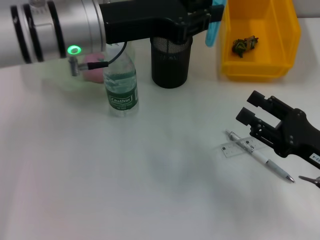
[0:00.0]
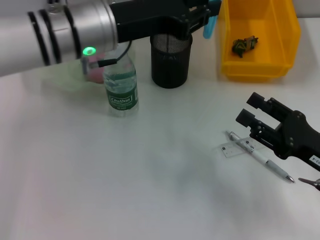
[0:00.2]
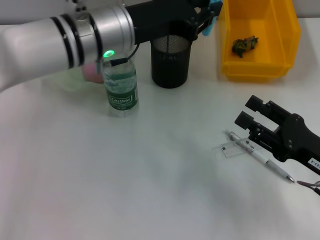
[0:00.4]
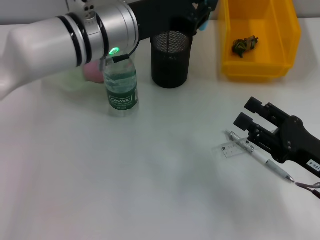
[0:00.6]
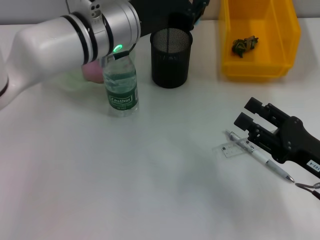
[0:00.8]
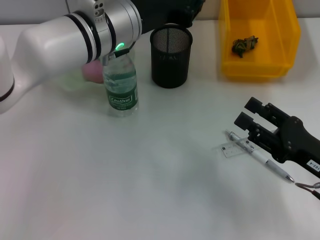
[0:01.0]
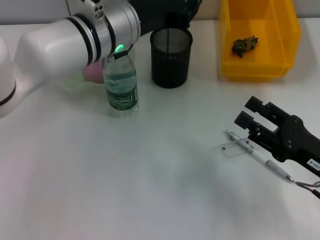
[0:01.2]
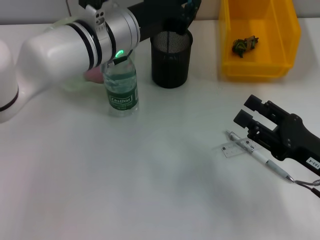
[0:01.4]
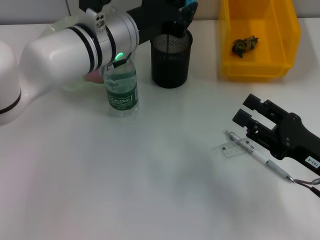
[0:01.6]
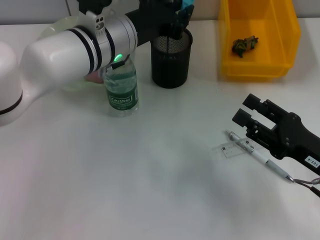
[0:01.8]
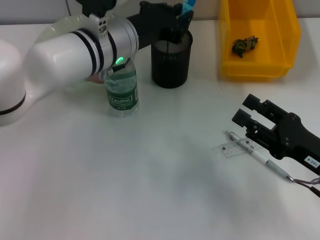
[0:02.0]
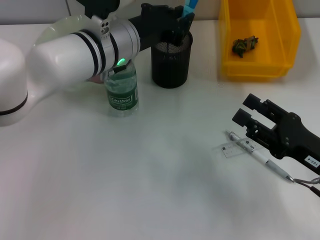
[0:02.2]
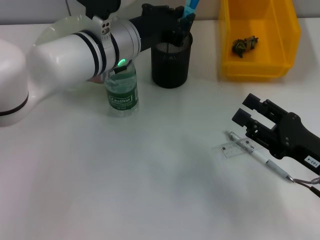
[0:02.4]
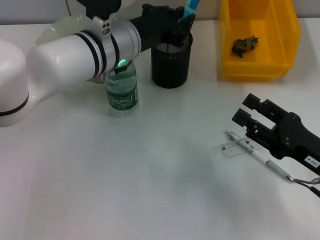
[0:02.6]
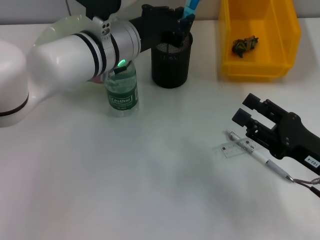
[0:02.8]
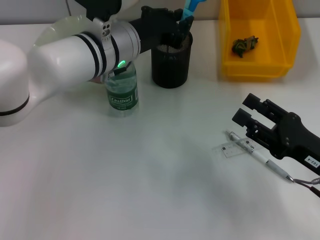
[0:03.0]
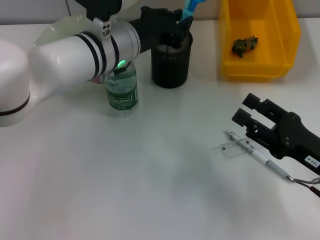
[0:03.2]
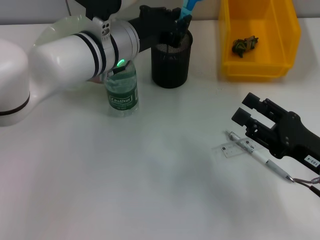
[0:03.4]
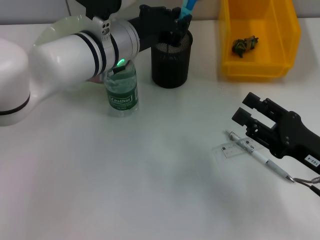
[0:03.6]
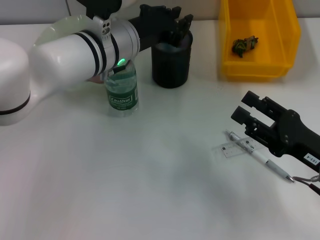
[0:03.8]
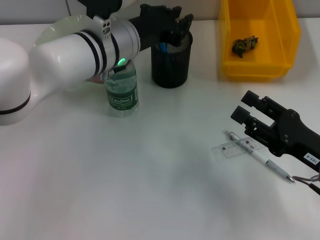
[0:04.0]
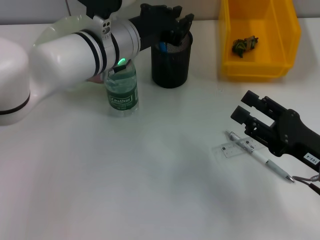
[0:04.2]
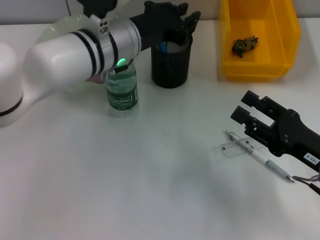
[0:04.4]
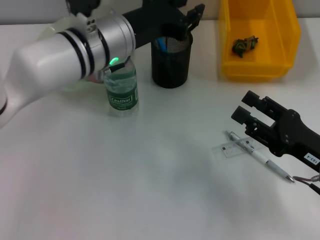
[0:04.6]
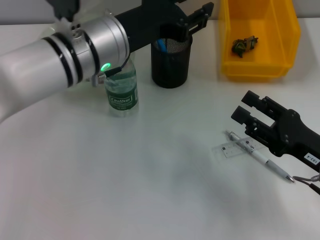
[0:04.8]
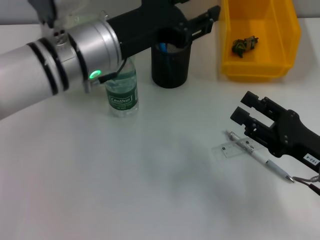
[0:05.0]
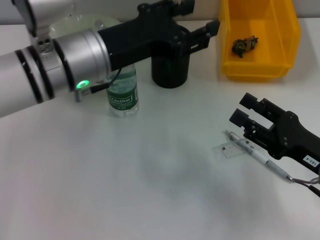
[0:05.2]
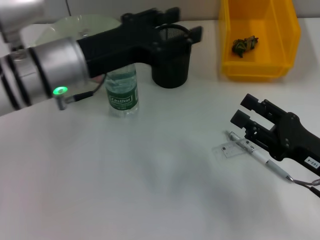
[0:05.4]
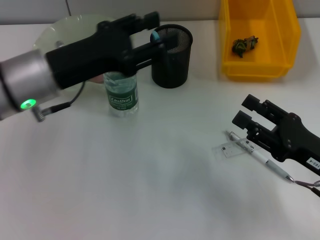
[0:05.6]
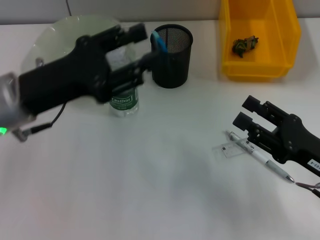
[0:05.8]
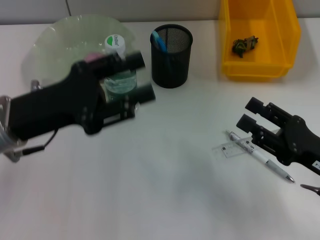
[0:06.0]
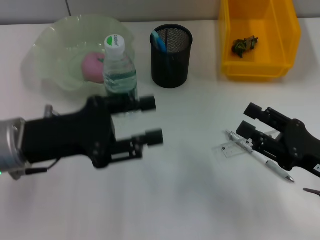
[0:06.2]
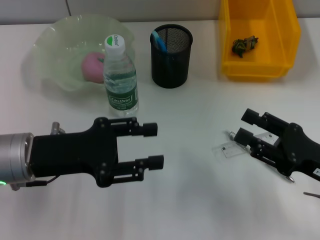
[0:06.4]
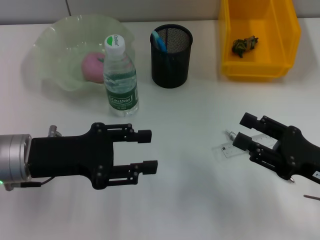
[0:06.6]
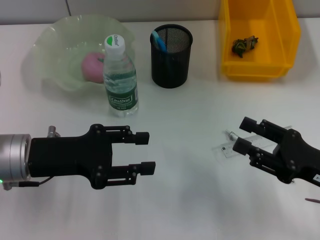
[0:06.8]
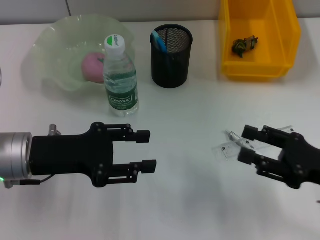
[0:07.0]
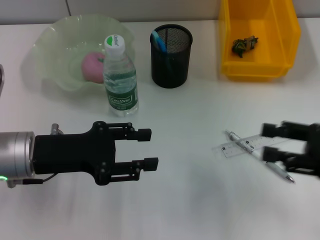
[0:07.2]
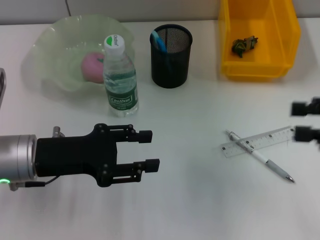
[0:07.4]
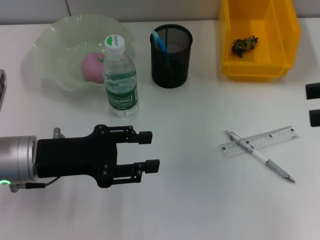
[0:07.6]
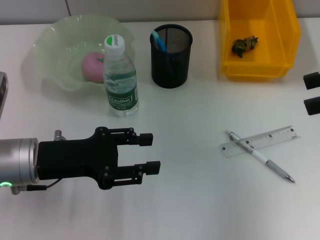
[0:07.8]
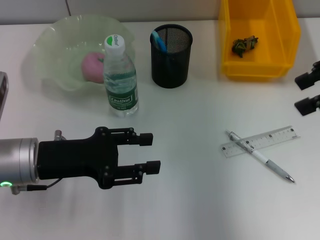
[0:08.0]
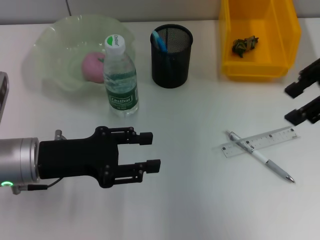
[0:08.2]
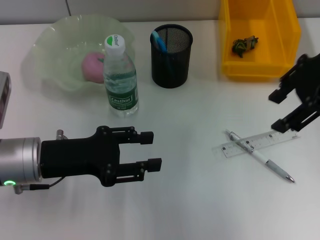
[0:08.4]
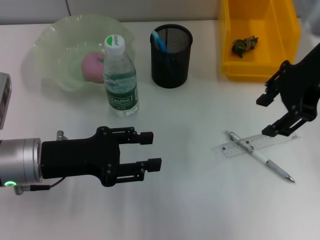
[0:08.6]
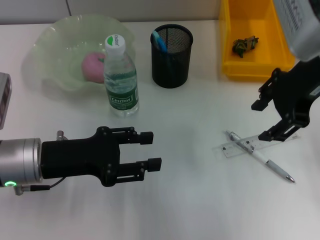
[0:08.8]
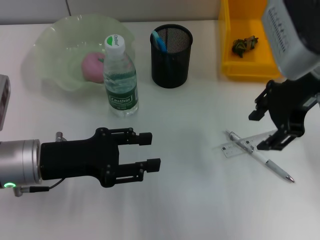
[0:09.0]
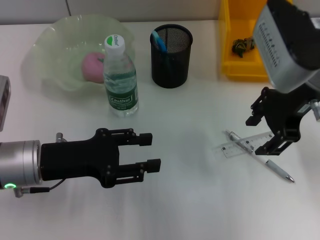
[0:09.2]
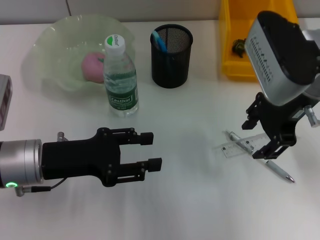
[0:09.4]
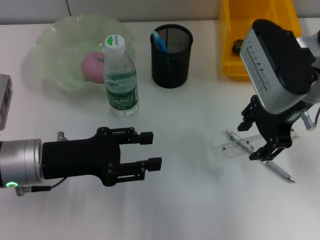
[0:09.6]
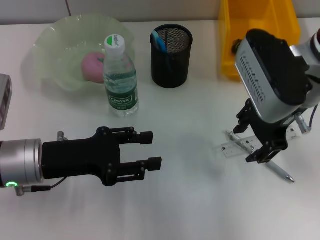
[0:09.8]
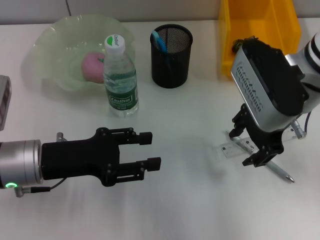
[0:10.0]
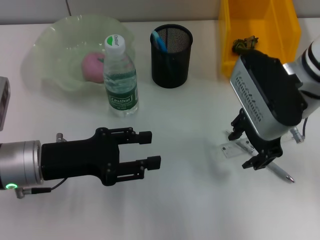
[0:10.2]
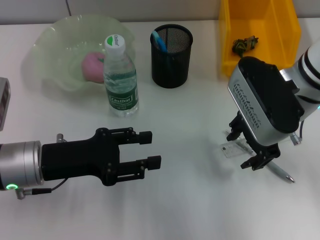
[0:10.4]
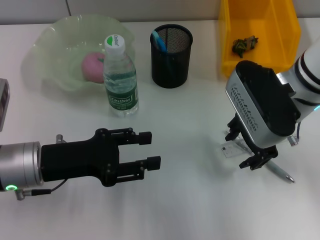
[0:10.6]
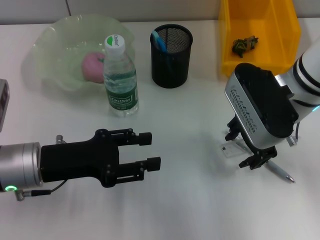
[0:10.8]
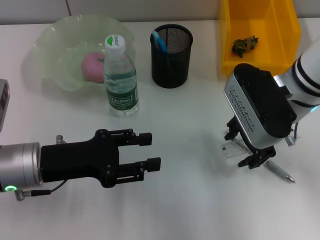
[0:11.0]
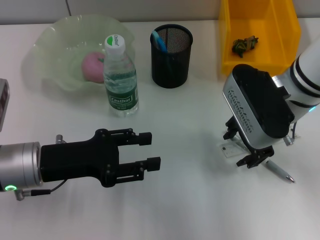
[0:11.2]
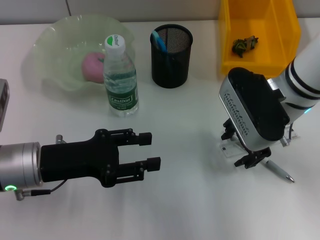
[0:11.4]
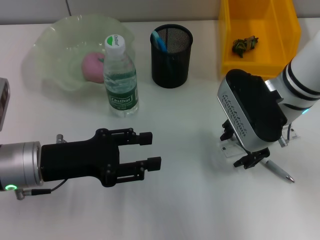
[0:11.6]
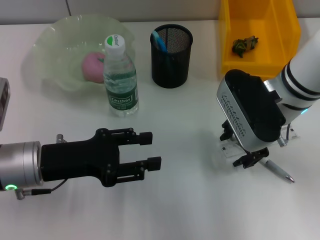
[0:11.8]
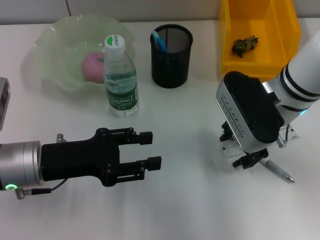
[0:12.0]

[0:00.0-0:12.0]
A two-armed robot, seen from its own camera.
Step, 0:00.0 to 0:04.2: Place the blue scissors into the pen holder with the left hand.
0:00.0 to 0:01.6: The left gripper ends up approximately 5 cm from where it was.
0:01.6 to 0:03.0: The grippers stay close to where they were, moving slightly.
0:03.0 to 0:04.4: Both grippers stay about where they are.
0:04.4 to 0:06.0: The left gripper moves to the left and backward, about 20 cm, and opens.
0:06.0 to 0:07.6: The right gripper shifts some 20 cm upward.
0:07.6 to 0:09.0: The right gripper moves to the left and forward, some 15 cm.
0:09.0 to 0:10.4: The right gripper is displaced downward by some 5 cm.
0:10.4 to 0:12.0: There are only small adjustments of the grippers.

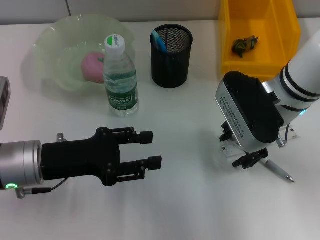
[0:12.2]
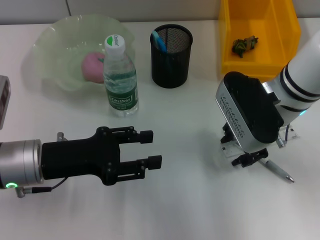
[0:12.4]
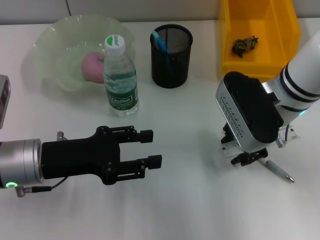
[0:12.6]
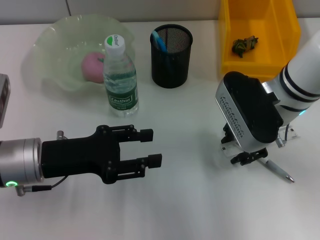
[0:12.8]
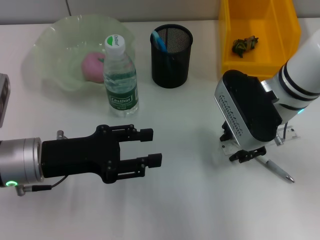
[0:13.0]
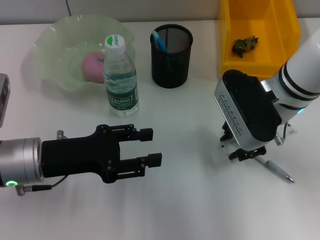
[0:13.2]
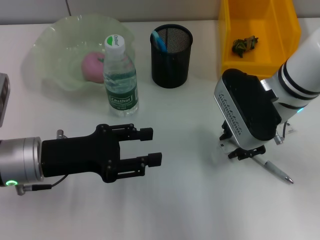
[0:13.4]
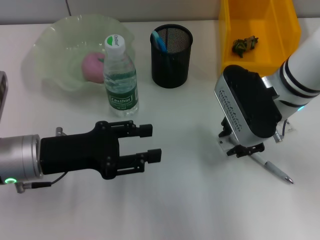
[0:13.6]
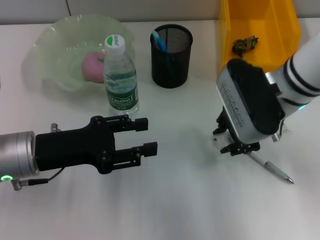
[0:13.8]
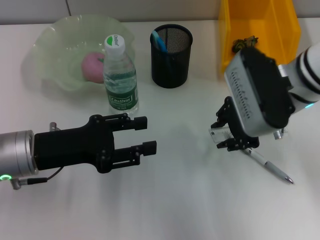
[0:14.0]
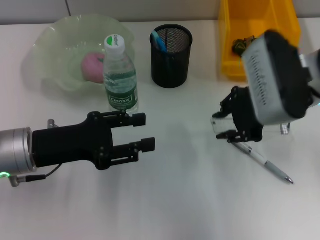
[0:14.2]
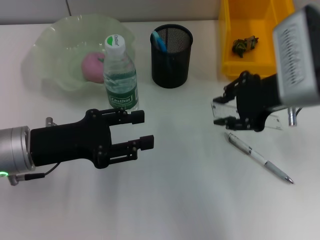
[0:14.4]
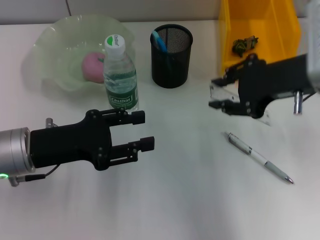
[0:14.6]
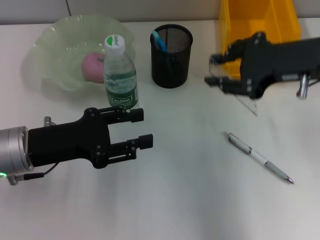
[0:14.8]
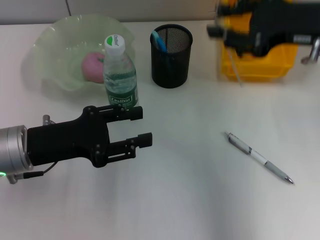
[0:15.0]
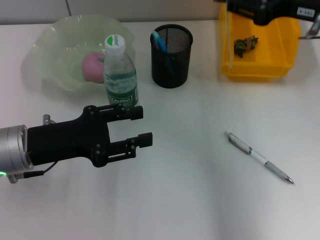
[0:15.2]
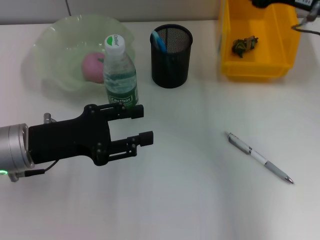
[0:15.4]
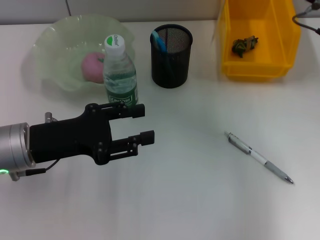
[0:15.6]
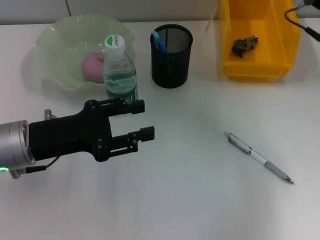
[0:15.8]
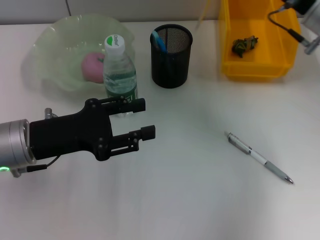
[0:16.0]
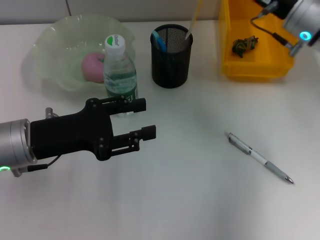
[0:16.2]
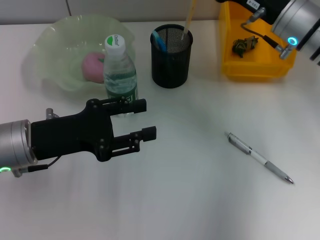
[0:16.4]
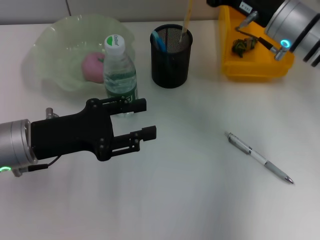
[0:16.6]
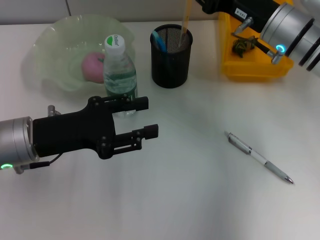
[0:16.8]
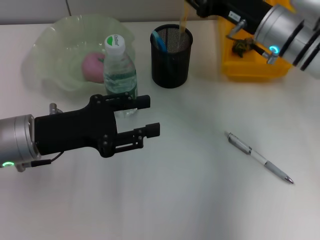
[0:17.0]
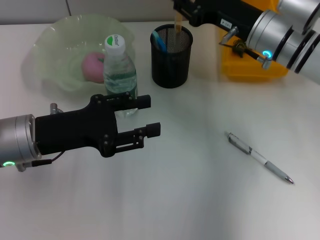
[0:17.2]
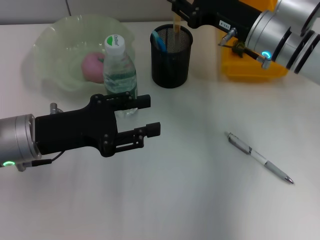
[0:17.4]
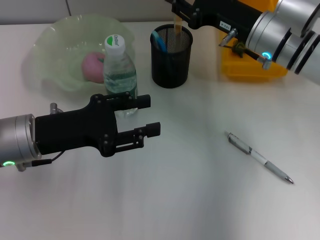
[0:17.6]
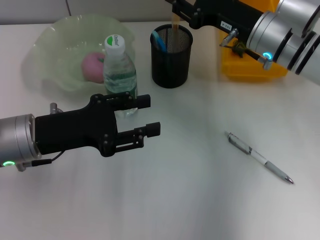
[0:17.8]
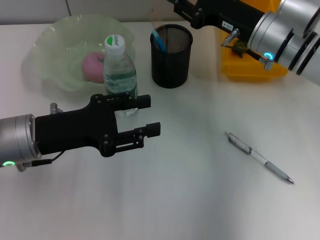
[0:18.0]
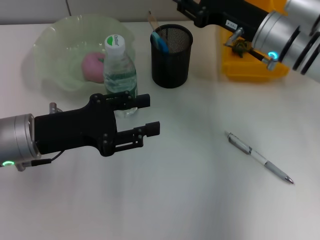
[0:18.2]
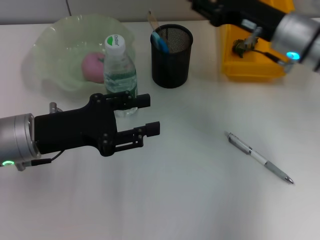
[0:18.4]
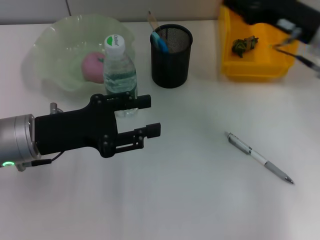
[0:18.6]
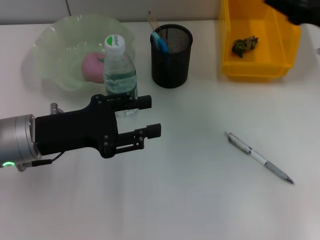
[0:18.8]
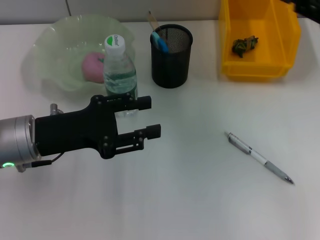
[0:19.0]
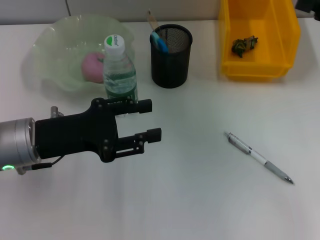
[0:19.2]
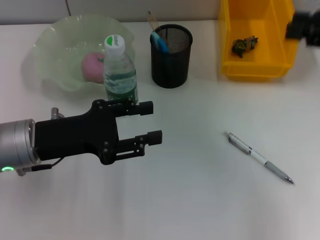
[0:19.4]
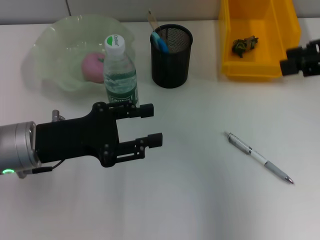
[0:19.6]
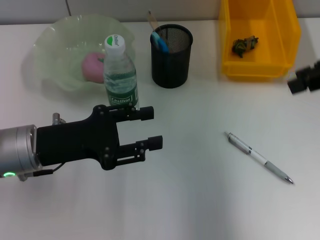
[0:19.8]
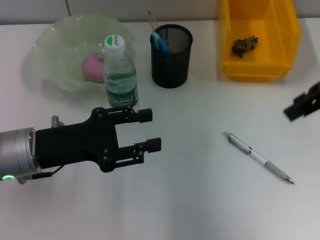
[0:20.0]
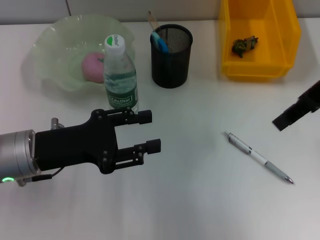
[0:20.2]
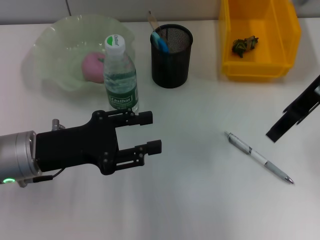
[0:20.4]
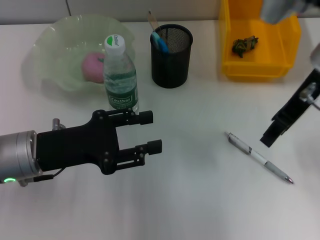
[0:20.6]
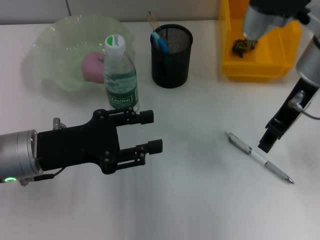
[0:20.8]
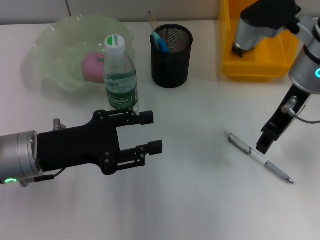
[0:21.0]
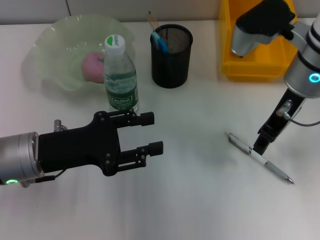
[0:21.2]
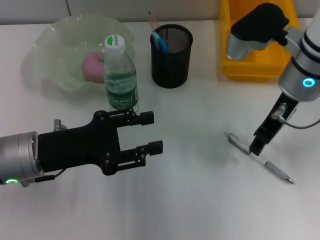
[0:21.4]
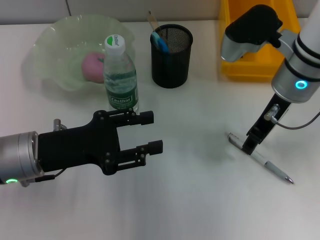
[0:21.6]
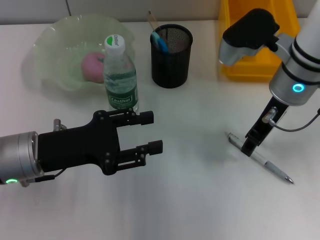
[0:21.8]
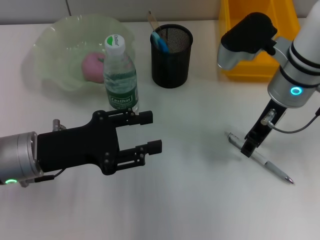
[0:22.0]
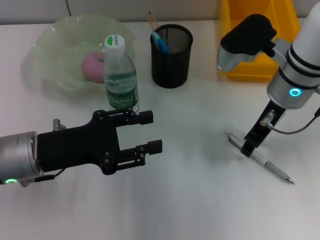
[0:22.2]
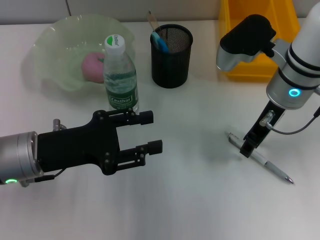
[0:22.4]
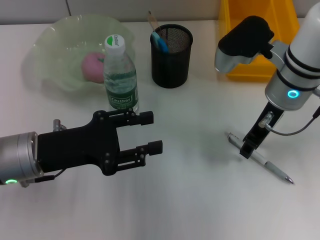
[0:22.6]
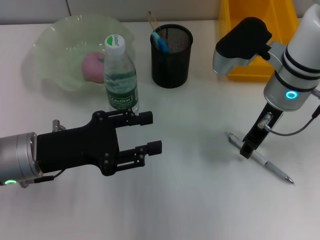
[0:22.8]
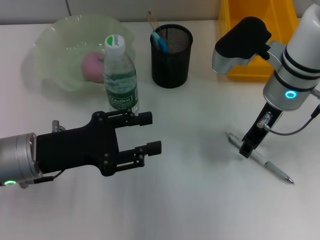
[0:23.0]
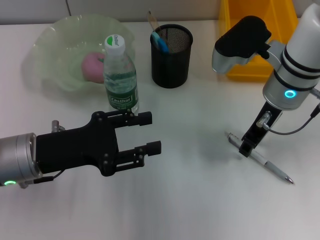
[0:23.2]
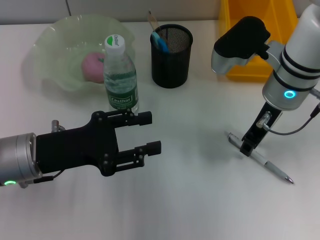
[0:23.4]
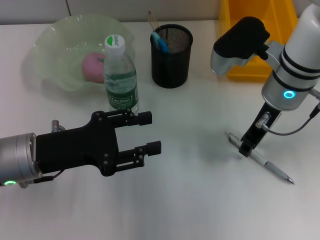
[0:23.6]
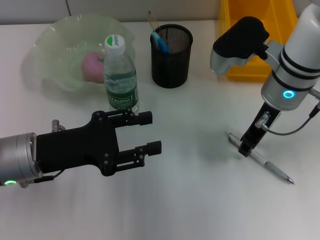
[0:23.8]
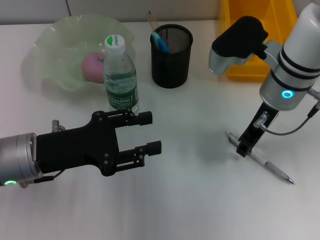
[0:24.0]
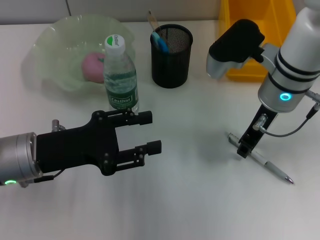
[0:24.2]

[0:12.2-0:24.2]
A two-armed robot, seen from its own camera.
Step, 0:13.2 to 0:18.0: Place the ruler into the pen holder with the right hand.
0:12.2 to 0:13.8: The right gripper closes its fingers.
0:13.8 to 0:15.2: The right gripper shifts some 10 cm to the right and upward.
0:15.2 to 0:16.6: The right gripper is displaced downward and forward by roughly 10 cm.
0:16.6 to 0:18.2: The grippers make only small movements.
0:18.2 to 0:19.8: The right gripper goes approximately 20 cm upward, to the right and backward.
0:19.8 to 0:21.2: The right gripper moves to the left, downward and forward, some 15 cm.
0:21.2 to 0:22.6: The grippers make only small movements.
0:22.6 to 0:24.2: Both grippers stay put.
